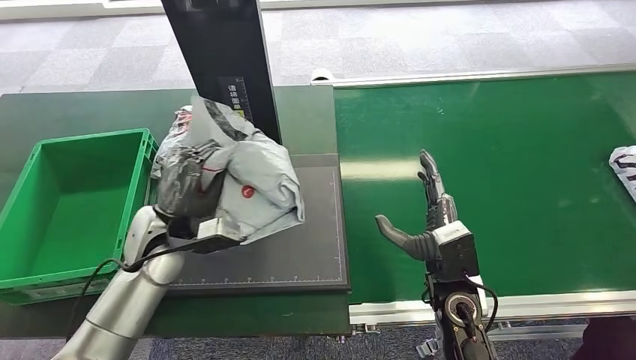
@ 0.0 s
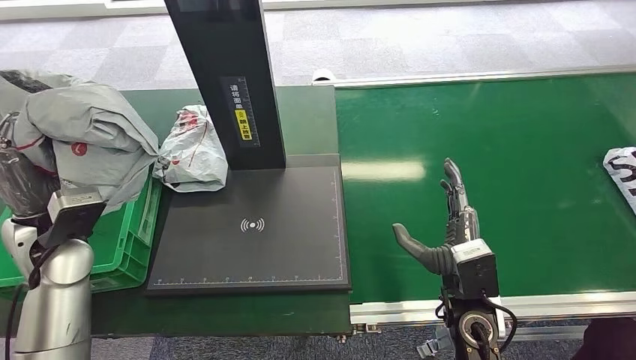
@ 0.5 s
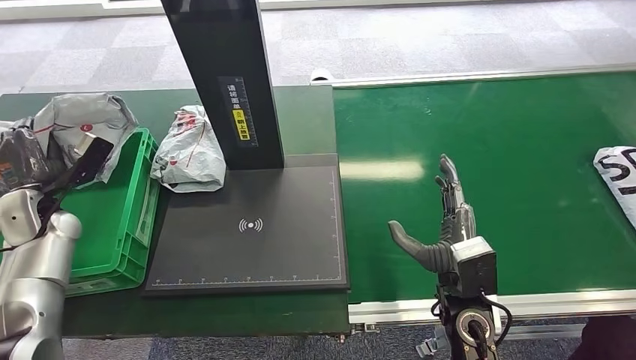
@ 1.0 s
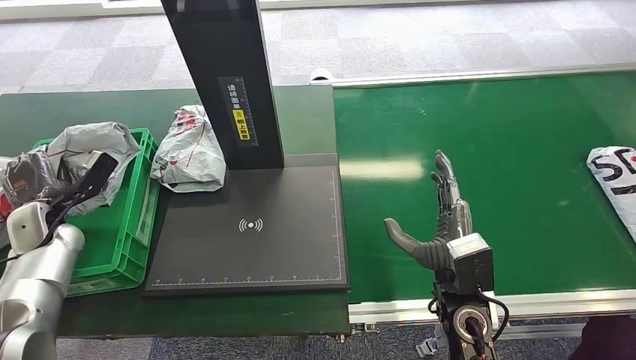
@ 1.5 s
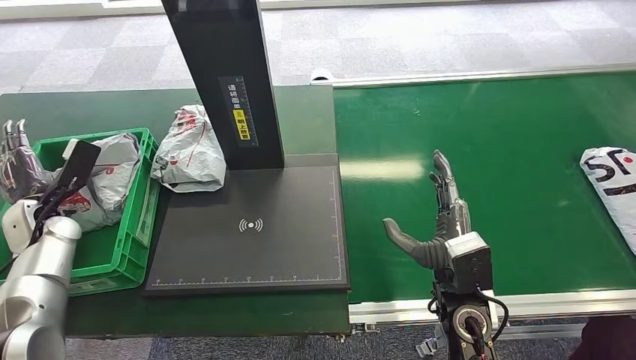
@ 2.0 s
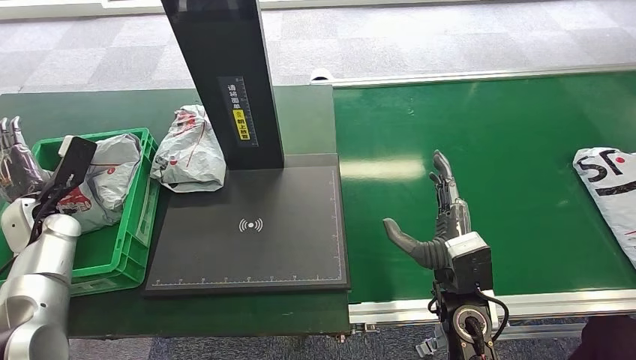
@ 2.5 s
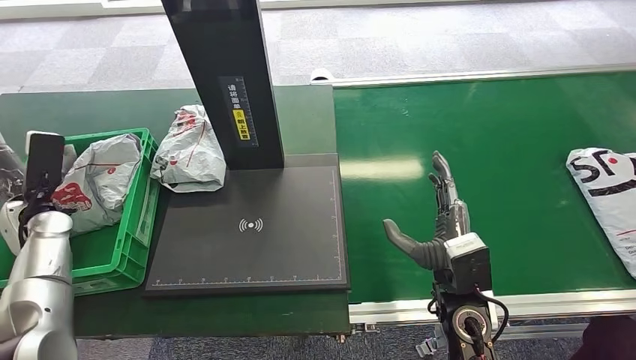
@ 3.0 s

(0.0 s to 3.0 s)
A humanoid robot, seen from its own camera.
Step, 1.0 s - 3.0 s: Place the package into the parcel locker.
